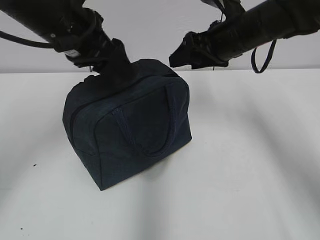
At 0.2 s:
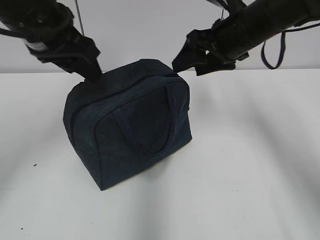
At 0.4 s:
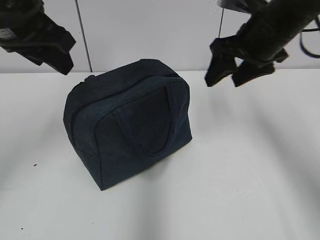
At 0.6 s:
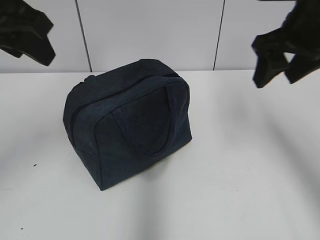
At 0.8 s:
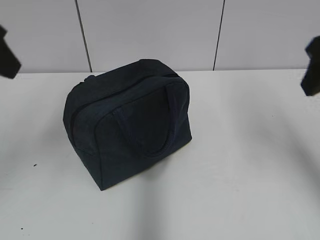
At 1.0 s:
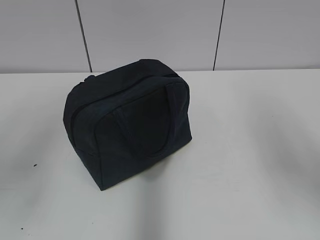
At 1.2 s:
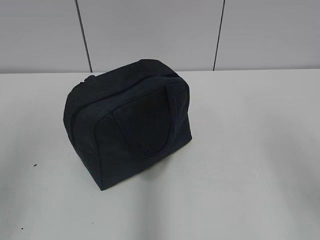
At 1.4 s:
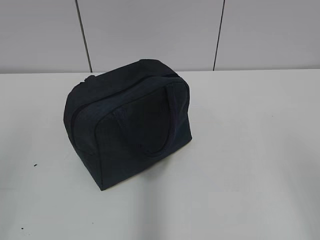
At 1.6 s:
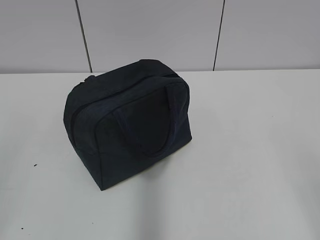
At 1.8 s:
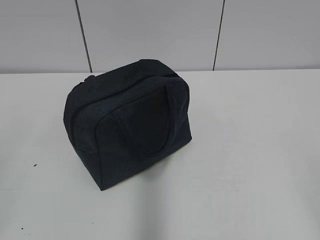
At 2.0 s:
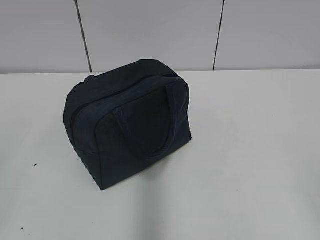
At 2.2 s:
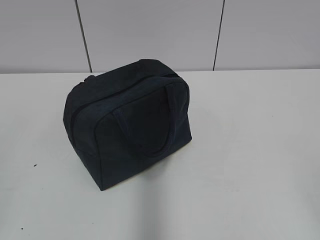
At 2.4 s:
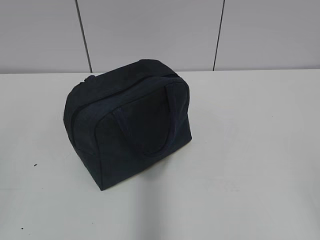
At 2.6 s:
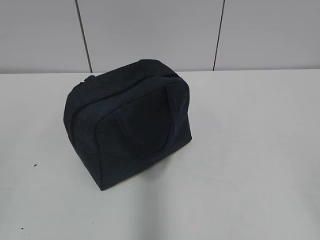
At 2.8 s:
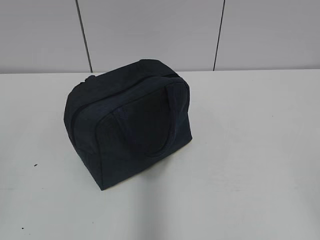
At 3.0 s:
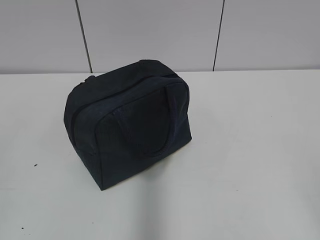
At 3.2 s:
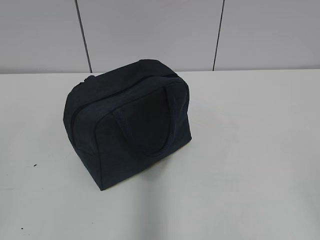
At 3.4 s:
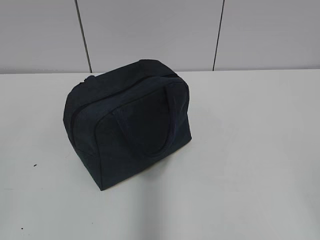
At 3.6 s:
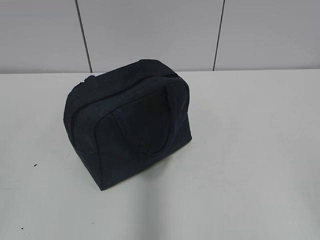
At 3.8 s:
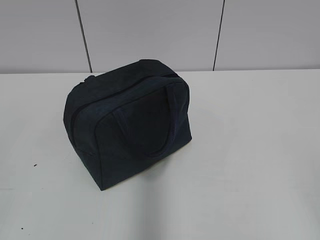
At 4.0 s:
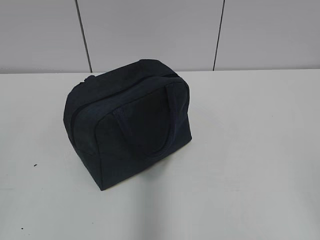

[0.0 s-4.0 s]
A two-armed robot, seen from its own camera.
0.0 to 1.4 s: The left gripper moves backward and to the left, approximately 30 cm. Meanwhile the right gripper travels backward by about 35 cm.
